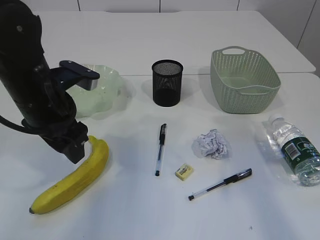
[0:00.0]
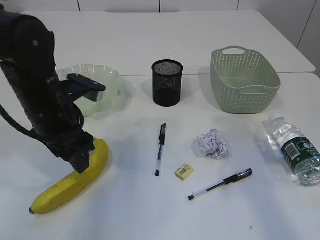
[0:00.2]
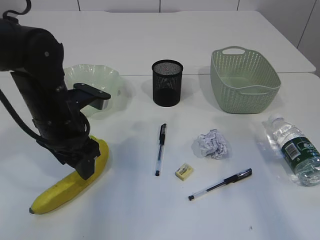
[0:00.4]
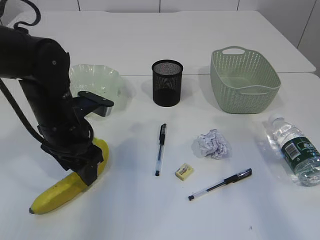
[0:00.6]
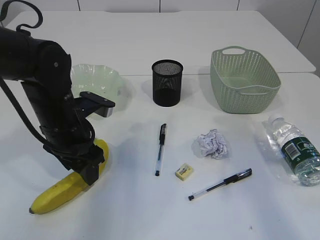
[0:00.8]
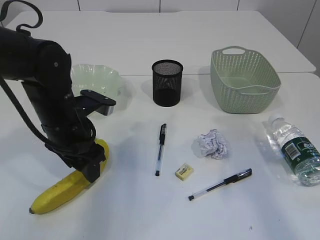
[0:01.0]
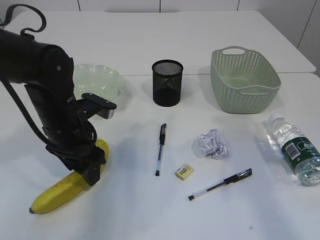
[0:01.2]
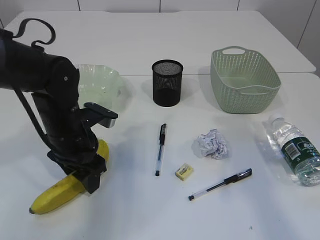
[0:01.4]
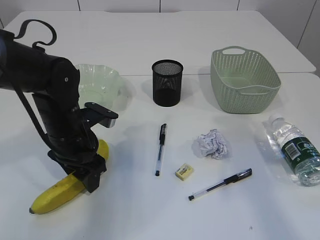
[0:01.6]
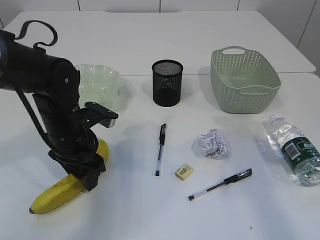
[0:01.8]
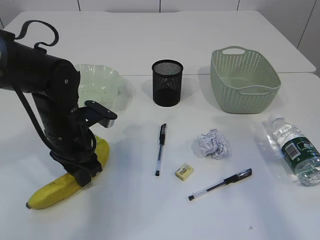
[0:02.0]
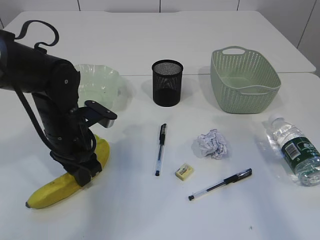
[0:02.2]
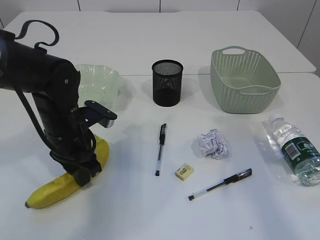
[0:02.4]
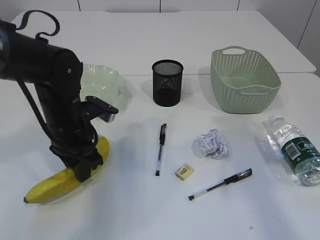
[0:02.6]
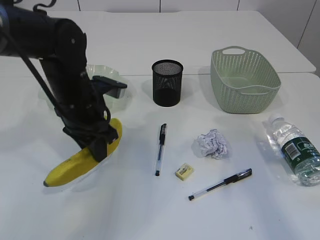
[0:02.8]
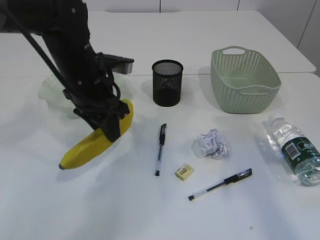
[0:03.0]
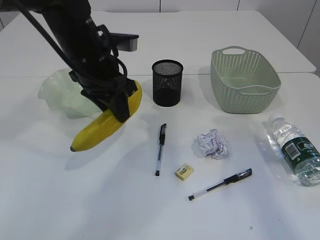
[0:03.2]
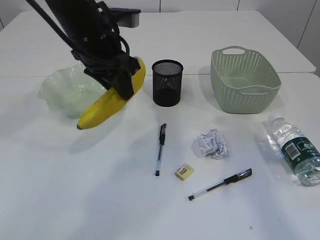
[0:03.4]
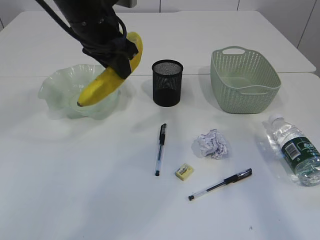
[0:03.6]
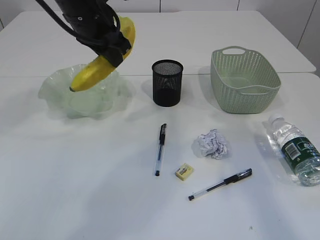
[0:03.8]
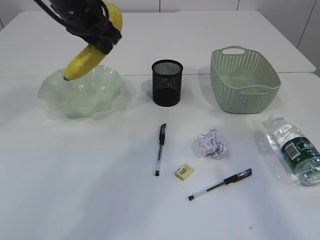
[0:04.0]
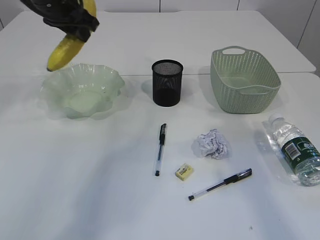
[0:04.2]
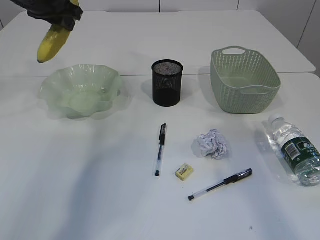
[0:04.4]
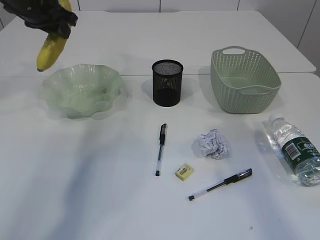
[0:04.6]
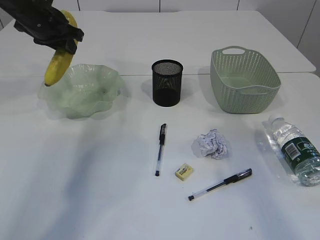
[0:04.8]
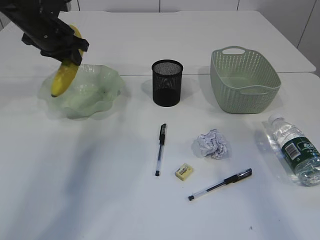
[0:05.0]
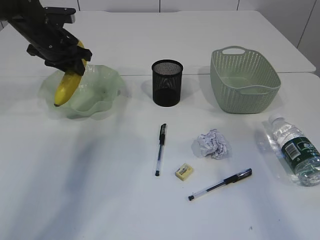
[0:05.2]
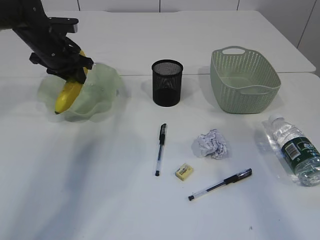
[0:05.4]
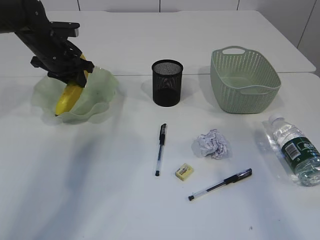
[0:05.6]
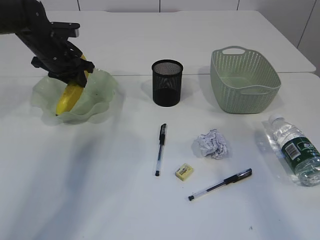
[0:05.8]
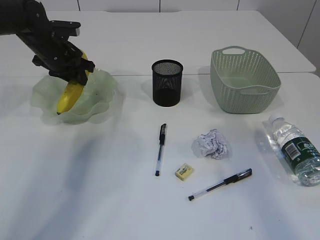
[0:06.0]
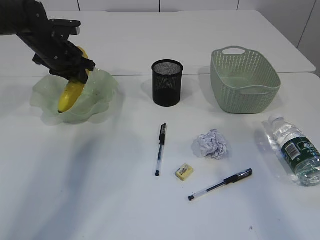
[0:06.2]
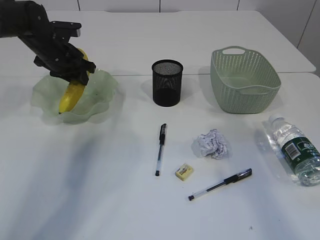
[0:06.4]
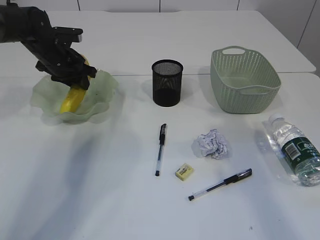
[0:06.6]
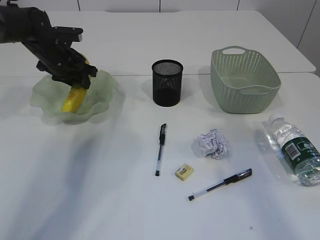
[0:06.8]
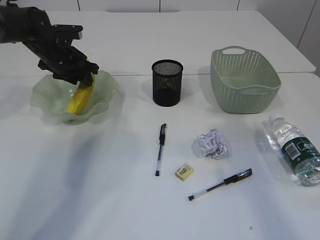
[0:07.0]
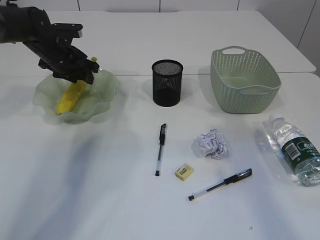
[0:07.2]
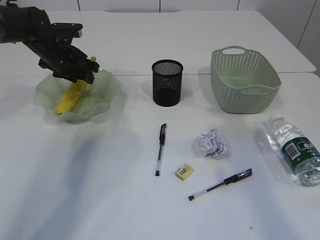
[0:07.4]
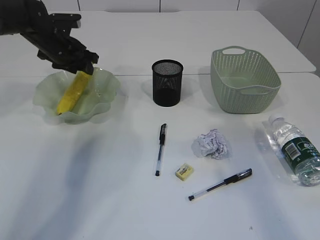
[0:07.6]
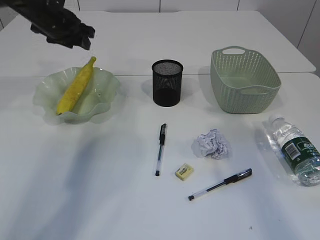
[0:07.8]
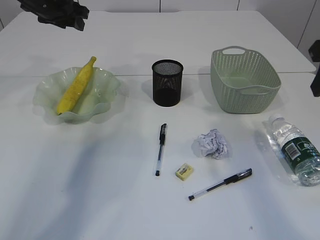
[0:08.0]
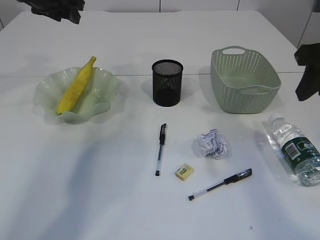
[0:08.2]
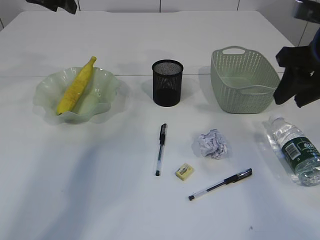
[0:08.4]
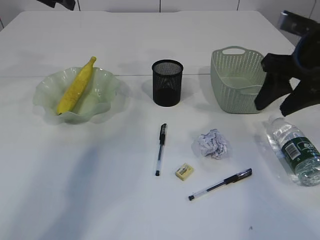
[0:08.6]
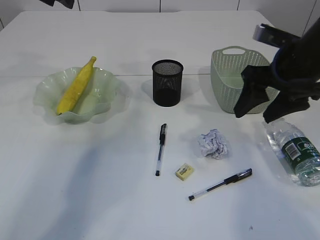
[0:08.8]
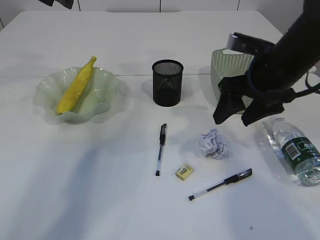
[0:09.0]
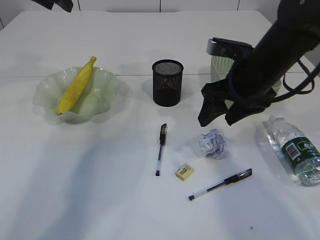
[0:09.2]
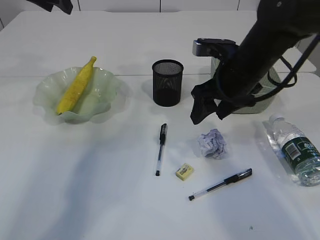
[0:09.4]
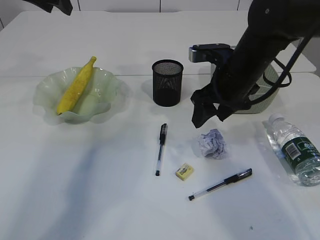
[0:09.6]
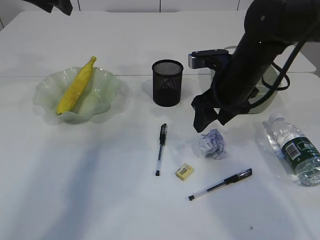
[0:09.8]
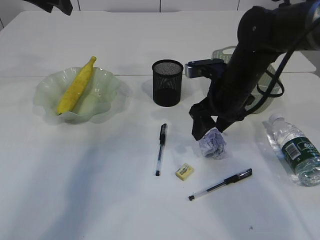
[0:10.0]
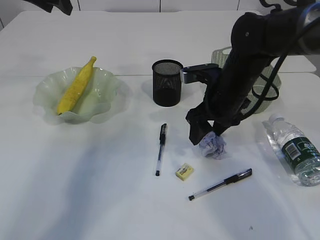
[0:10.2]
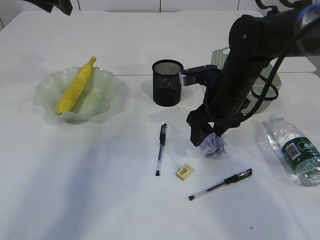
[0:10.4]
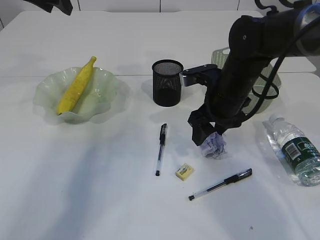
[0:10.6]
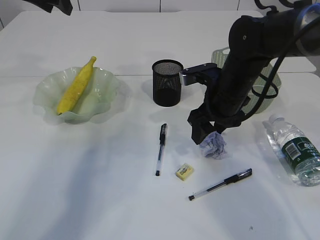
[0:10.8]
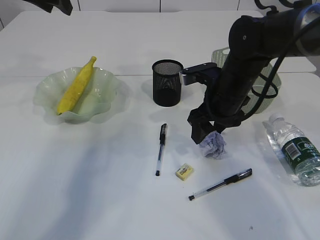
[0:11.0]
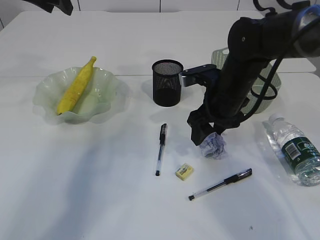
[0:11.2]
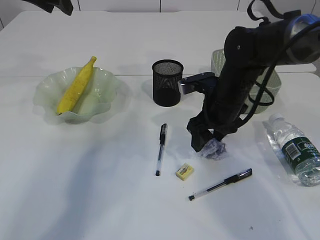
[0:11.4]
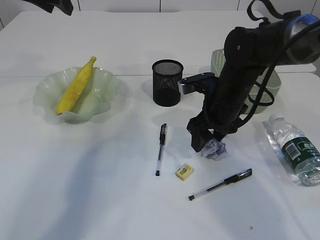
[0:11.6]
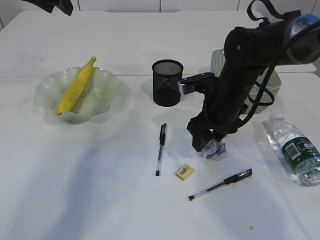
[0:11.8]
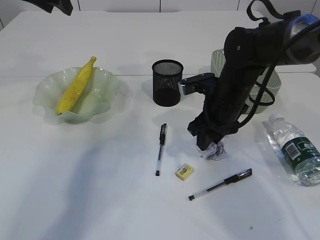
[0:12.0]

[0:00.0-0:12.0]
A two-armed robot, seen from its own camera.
Step, 0:03.0 to 0:07.6: Place the banana in the plate.
0:00.0 to 0:01.6: The left gripper heads downward, covering approximately 10 cm.
0:01.6 to 0:03.0: The left gripper travels upward by approximately 10 cm, and closes its fingers.
0:03.0 to 0:04.4: The left gripper goes roughly 20 cm forward, upward and to the left.
0:04.4 to 0:06.0: The left gripper shifts approximately 15 cm downward.
0:06.0 to 0:07.6: The grippers stay close to where they were, moving slightly.
0:07.6 to 0:09.0: The left gripper goes some 15 cm upward, while the right gripper is displaced downward, to the left and forward by roughly 15 cm, and opens its fingers.
0:09.0 to 0:10.4: The right gripper travels downward and to the left by roughly 10 cm.
0:10.4 to 0:12.0: The grippers make only small movements.

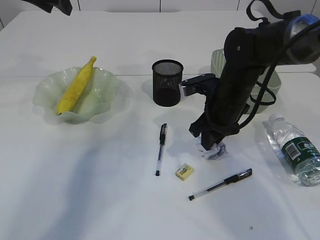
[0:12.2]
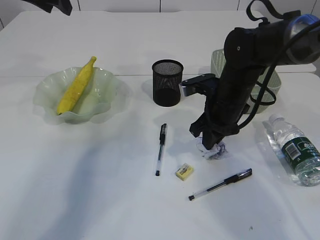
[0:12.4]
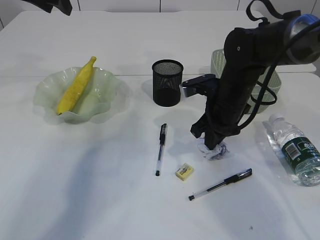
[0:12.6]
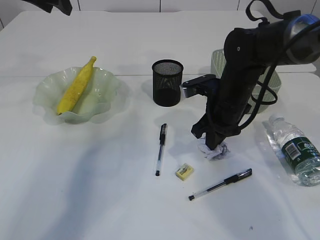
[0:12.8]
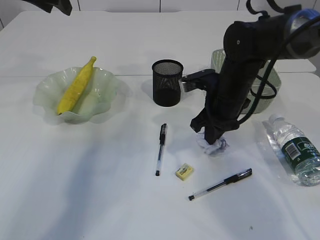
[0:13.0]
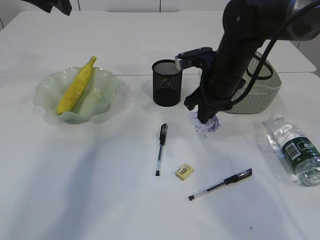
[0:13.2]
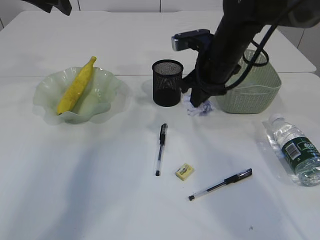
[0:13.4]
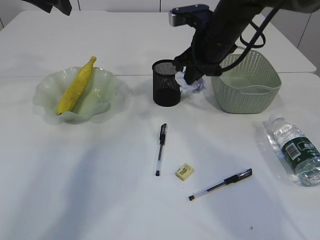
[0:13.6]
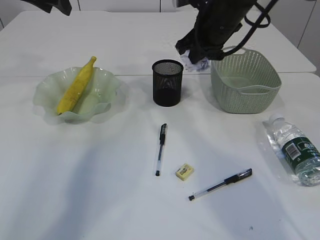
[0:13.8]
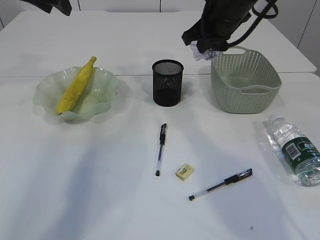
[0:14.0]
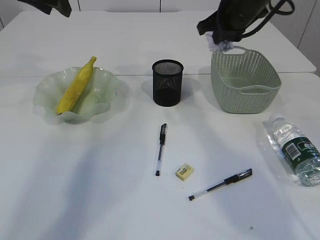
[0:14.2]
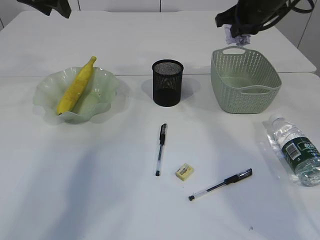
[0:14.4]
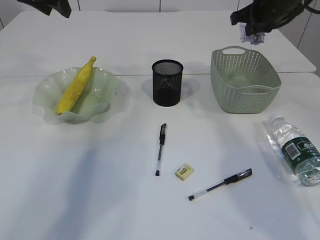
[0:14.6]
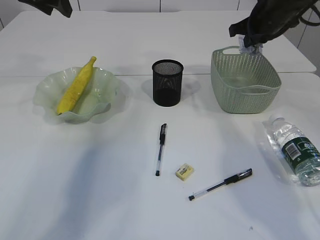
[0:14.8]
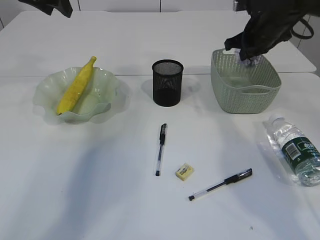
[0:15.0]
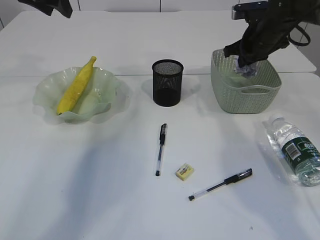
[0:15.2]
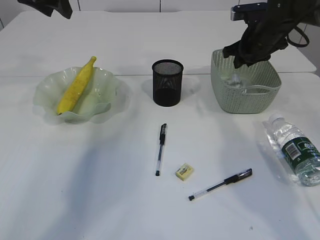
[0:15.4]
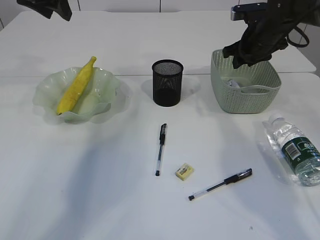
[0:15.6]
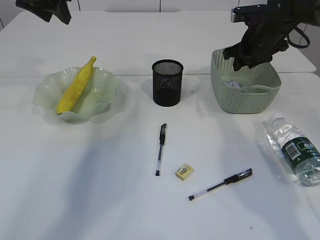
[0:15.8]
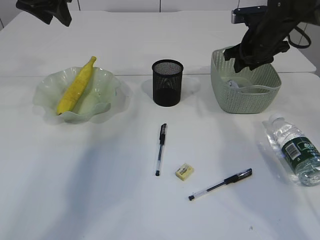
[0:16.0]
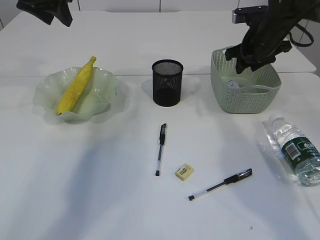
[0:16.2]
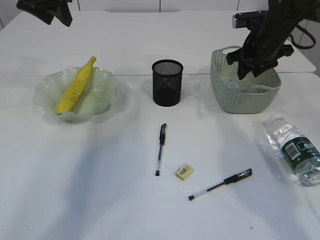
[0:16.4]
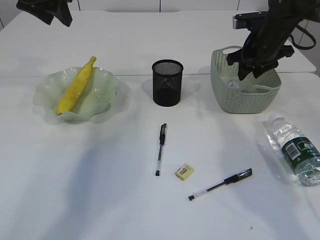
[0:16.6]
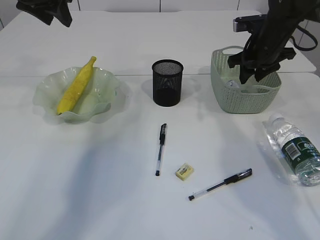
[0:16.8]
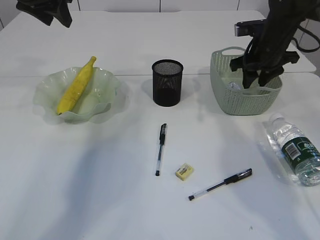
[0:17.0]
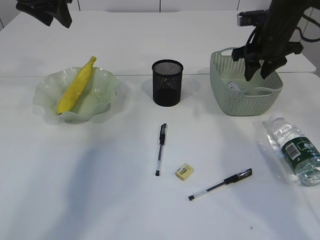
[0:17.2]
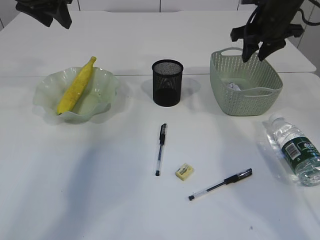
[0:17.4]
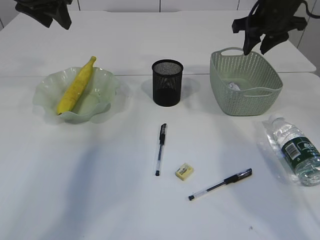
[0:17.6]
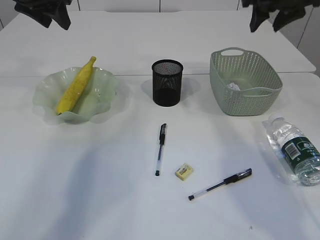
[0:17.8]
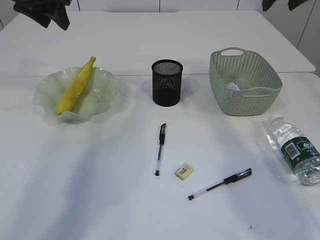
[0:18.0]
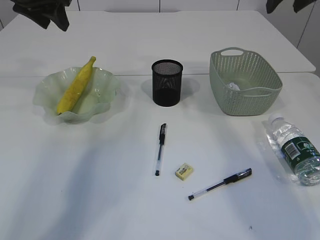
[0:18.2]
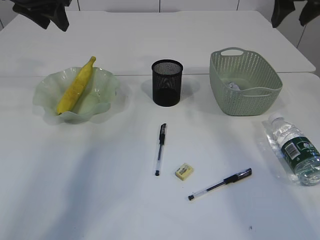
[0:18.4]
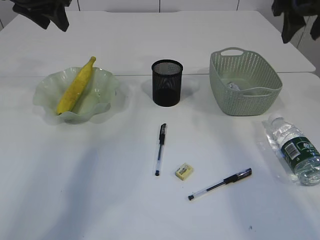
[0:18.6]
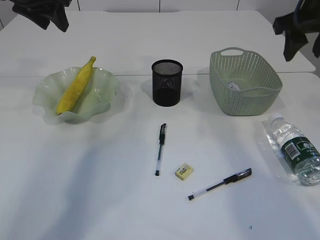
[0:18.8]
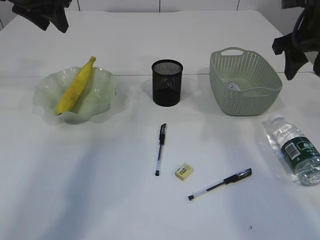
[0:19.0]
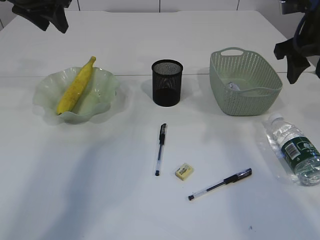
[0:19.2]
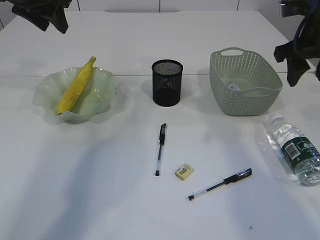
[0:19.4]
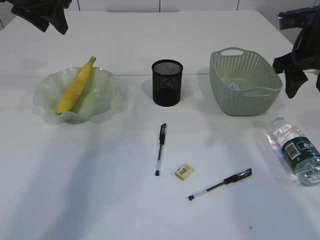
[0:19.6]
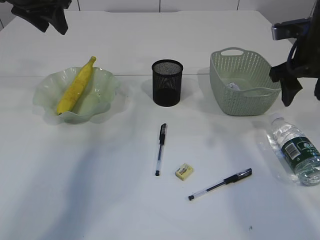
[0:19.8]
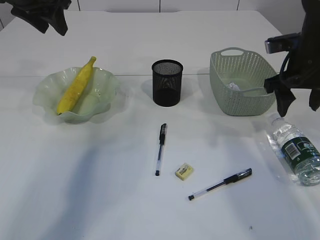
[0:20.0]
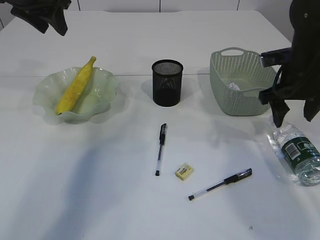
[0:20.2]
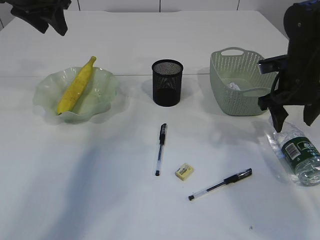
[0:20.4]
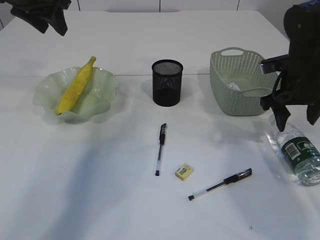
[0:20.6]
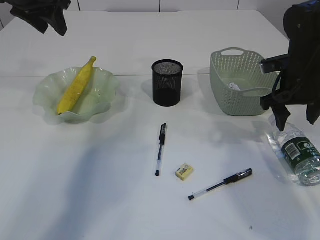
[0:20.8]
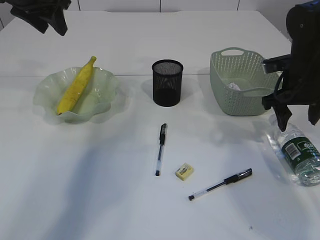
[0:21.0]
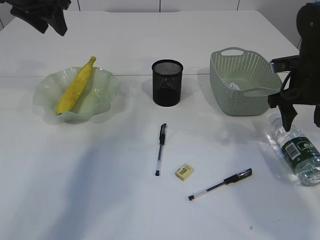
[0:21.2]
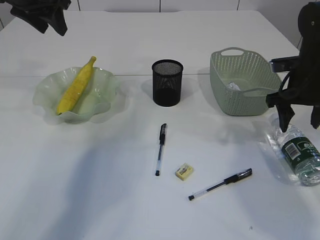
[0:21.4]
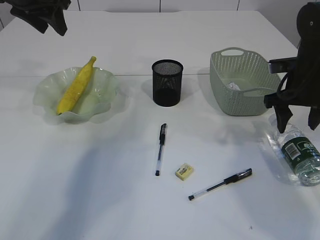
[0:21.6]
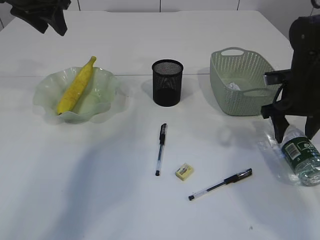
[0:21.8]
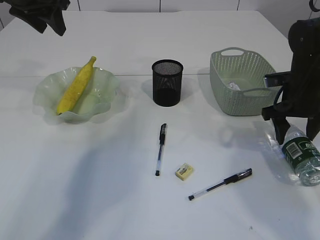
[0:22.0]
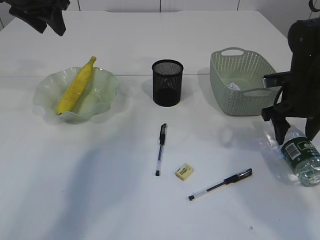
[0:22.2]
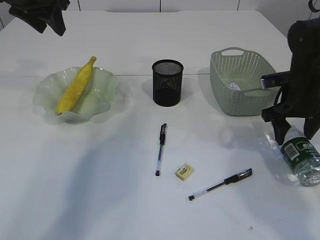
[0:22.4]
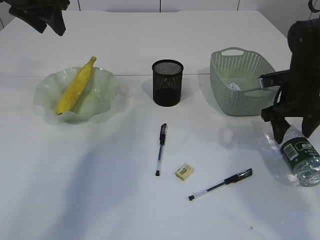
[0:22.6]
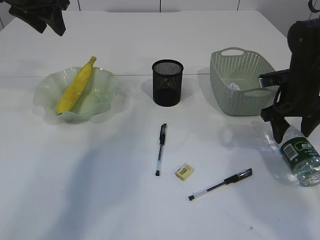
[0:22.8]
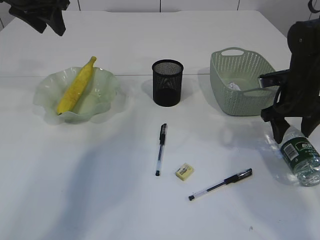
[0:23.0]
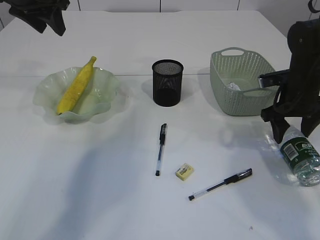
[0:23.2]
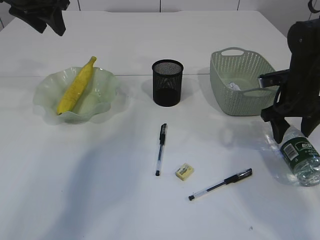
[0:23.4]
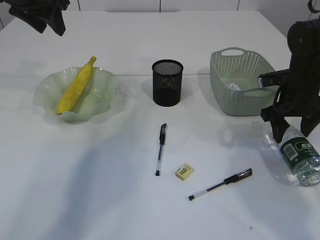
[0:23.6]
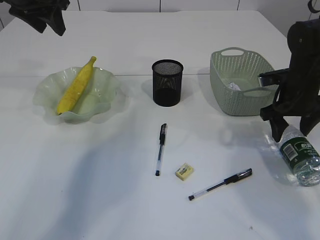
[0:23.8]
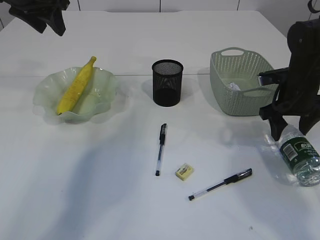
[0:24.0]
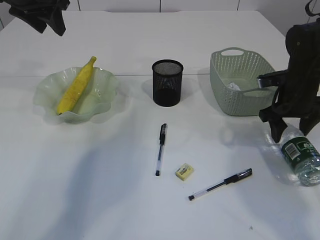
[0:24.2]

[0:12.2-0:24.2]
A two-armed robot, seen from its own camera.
Step, 0:13.4 to 0:17.4: Place the waste paper in the basket.
0:12.2 to 0:13.8: The right gripper travels upward and forward by approximately 15 cm.
0:13.8 to 0:15.2: The right gripper goes roughly 15 cm to the right, forward and downward.
0:15.2 to 0:16.6: The right gripper opens up.
0:16.6 to 0:18.2: The right gripper is displaced upward by some 15 cm.
0:18.2 to 0:19.8: The right gripper shifts some 15 cm downward and backward.
0:19.8 to 0:21.2: The right gripper is displaced downward by approximately 5 cm.
0:21.2 to 0:22.6: The grippers move only a little.
0:22.6 to 0:24.2: Both grippers stay put.
